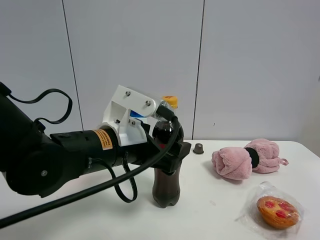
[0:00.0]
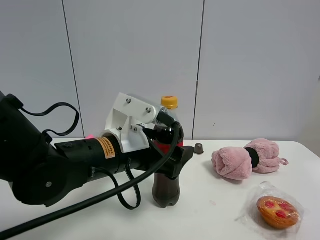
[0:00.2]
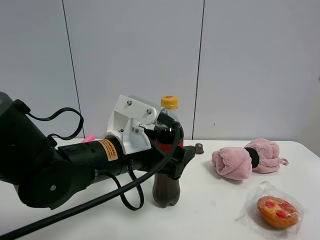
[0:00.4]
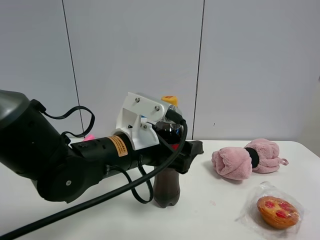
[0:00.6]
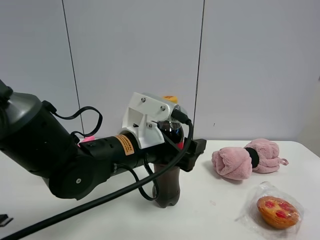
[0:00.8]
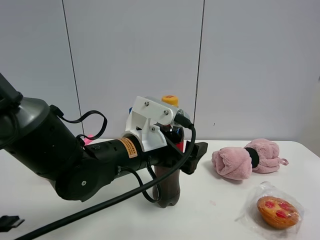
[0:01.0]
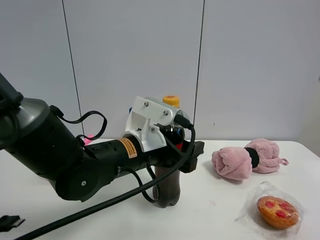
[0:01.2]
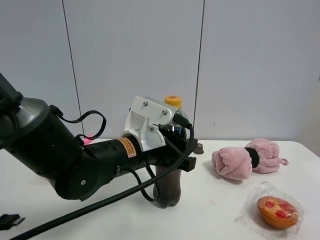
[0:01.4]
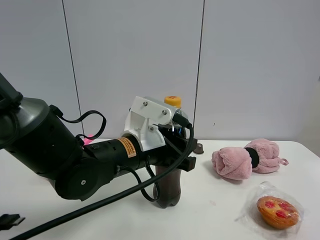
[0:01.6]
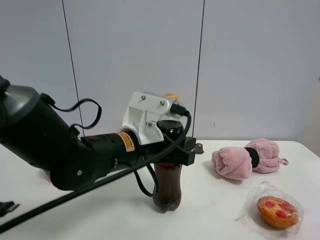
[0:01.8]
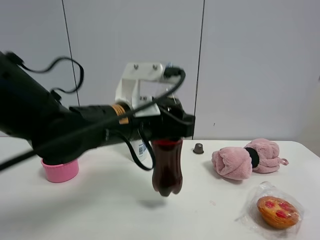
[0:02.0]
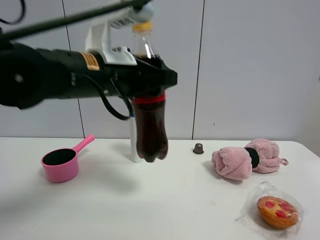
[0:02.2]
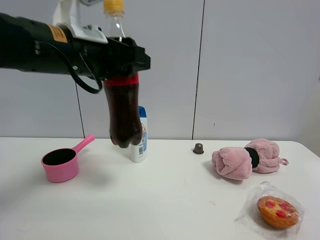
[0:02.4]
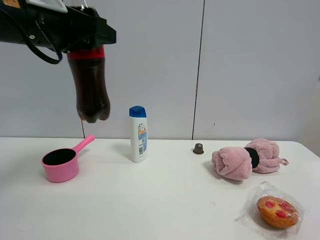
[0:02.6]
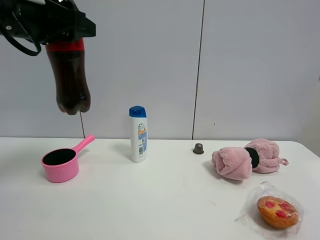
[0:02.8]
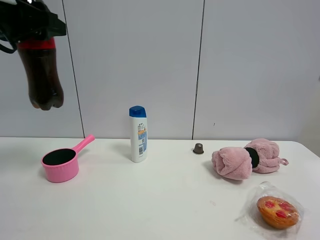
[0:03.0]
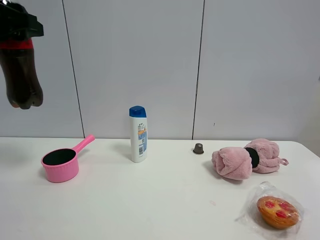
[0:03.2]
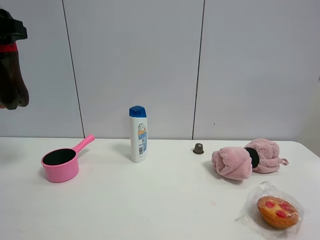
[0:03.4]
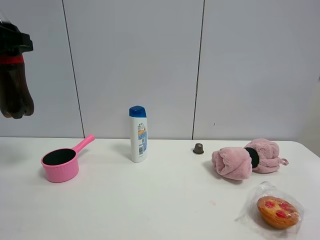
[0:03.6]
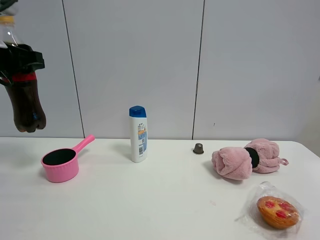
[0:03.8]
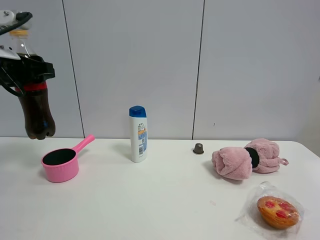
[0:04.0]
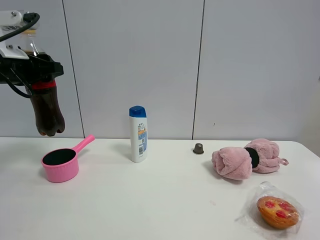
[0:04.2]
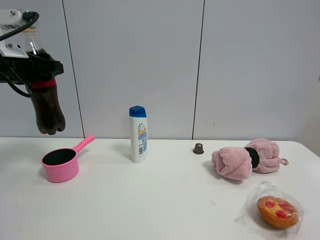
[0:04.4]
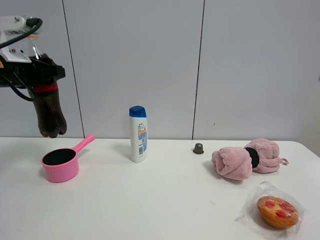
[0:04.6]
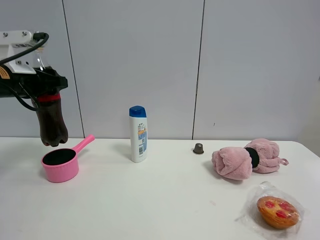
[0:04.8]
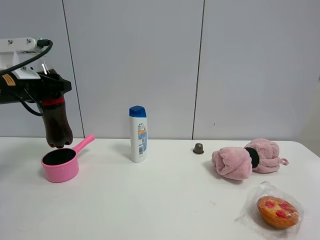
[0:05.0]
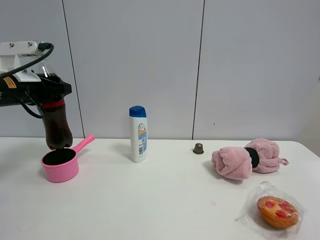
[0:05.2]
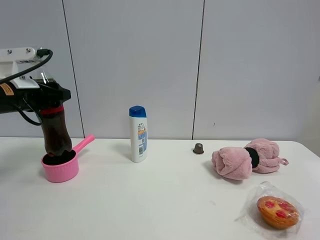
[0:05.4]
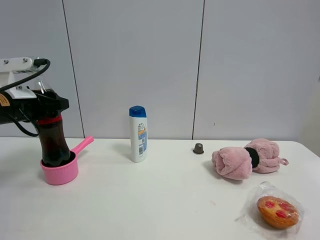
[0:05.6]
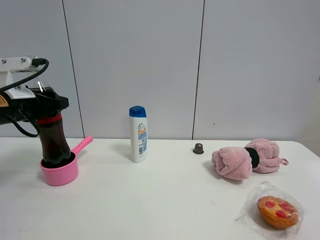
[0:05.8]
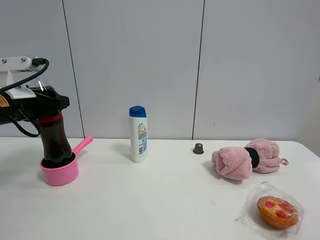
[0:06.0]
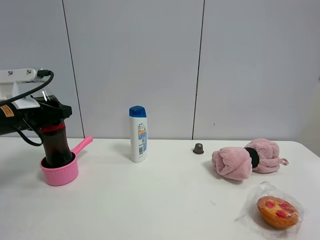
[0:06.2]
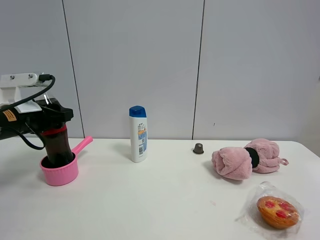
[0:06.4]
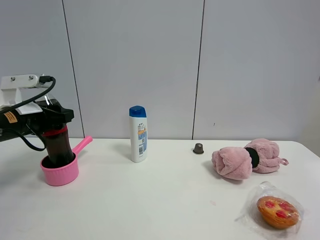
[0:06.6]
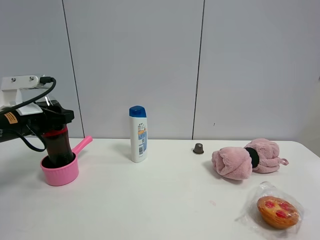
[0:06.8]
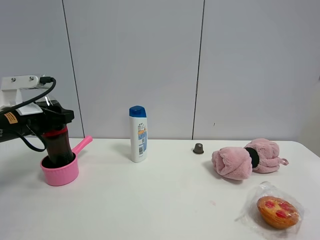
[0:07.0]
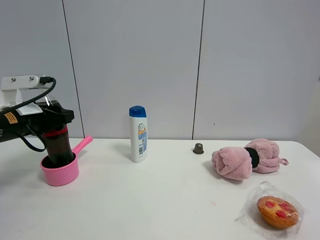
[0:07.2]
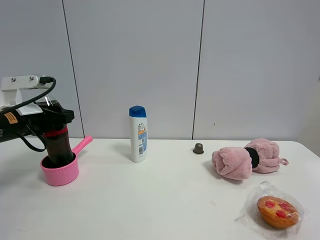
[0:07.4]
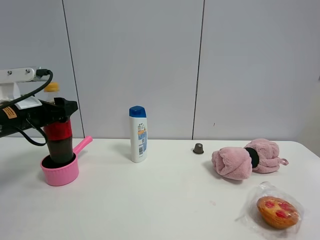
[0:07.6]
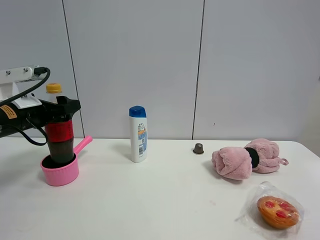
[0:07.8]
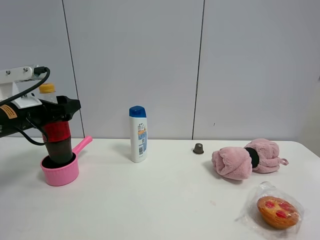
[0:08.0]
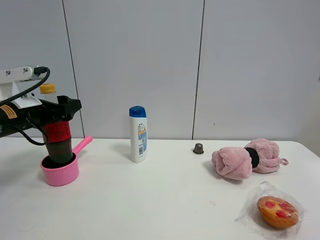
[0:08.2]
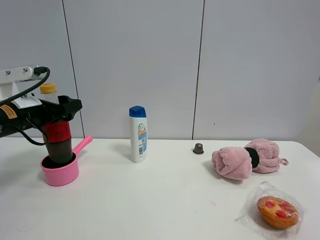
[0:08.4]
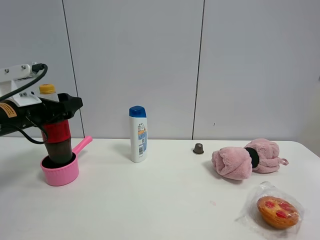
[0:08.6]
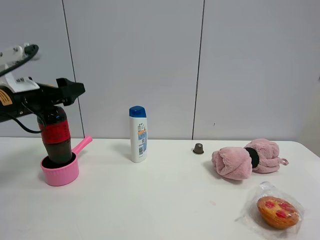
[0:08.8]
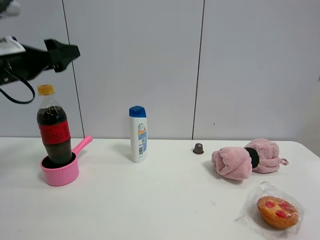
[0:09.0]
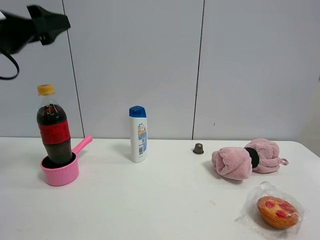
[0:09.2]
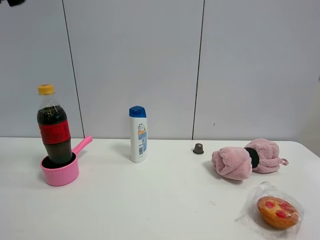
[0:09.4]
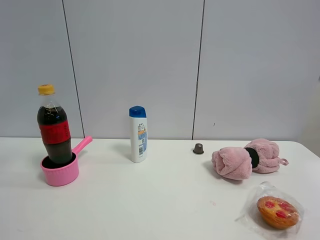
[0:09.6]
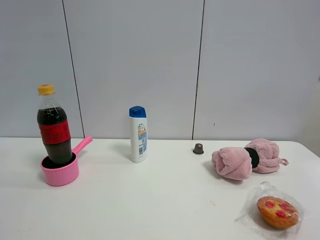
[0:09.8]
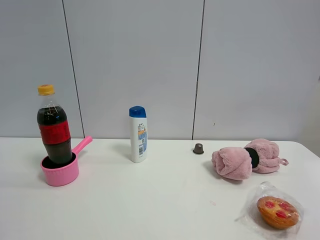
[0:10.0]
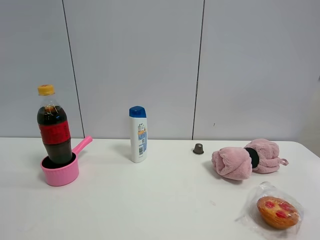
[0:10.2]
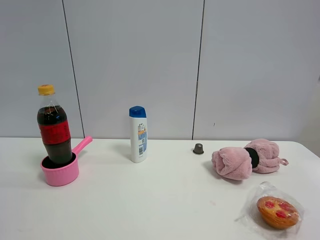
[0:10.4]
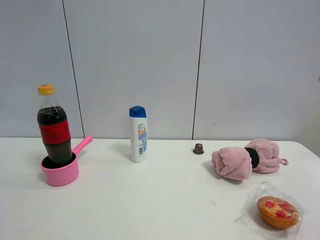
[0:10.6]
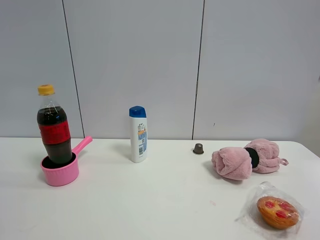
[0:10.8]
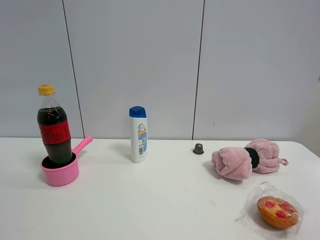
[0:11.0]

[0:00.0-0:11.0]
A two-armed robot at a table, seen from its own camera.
Task of the whole recording: the gripper move the object.
Step, 0:01.4 to 0:08.4: Place the coke into the pink pot with the left gripper.
0:00.0 to 0:01.6: The left gripper closes.
0:01.6 to 0:03.2: The left gripper heads to the left and upward, covering some 30 cm.
0:03.2 to 0:04.8: The left gripper shifts some 15 cm downward and forward.
0:04.8 to 0:06.2: The left gripper moves downward, some 5 cm.
0:06.2 to 0:07.8: The left gripper opens its fingers.
0:07.8 to 0:09.4: The left gripper goes approximately 20 cm upward and backward.

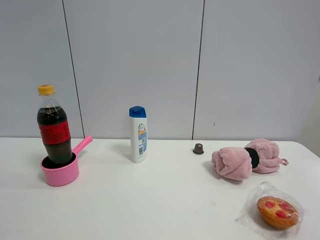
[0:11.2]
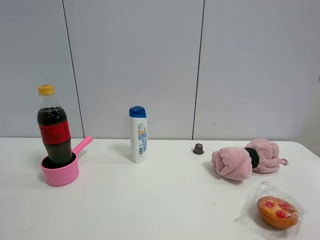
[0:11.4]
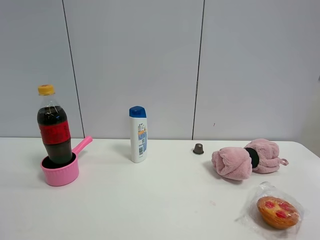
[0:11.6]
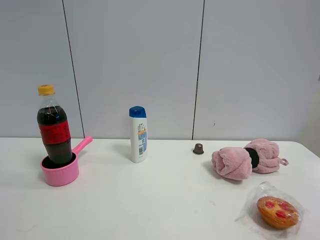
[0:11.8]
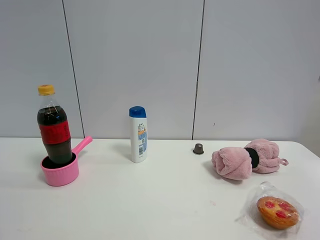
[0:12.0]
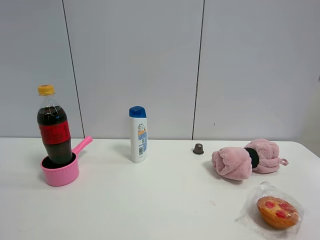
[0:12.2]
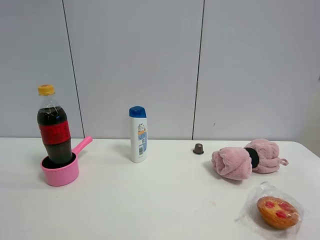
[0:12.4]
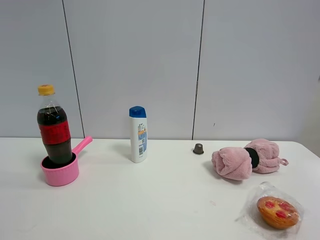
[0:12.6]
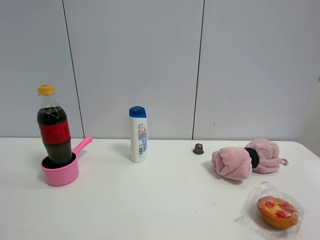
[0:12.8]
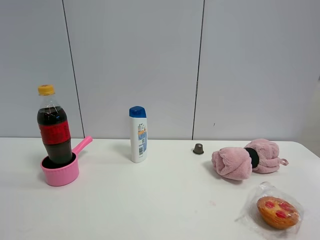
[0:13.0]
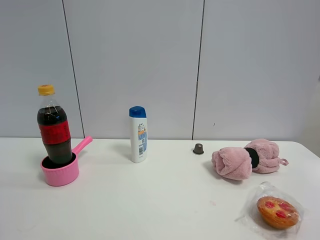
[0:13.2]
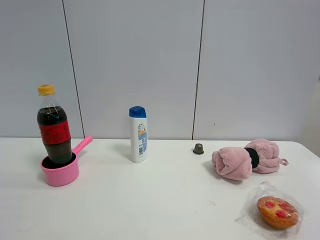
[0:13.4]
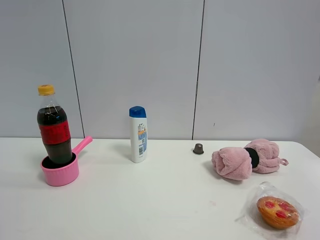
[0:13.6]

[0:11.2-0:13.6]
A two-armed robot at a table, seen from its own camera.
Task of the whole recording: the gripper move the object.
0:12.4 to 0:13.6: The two grippers keep their place.

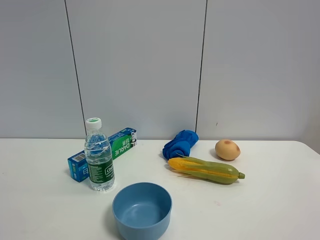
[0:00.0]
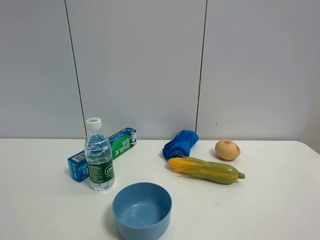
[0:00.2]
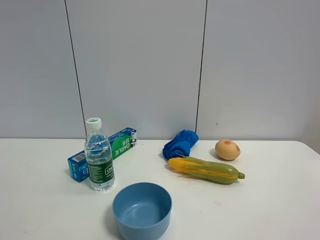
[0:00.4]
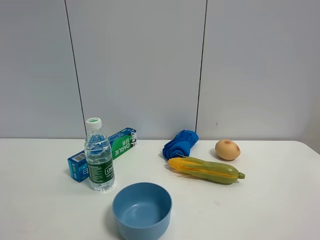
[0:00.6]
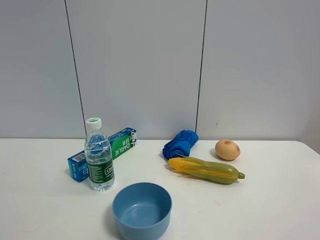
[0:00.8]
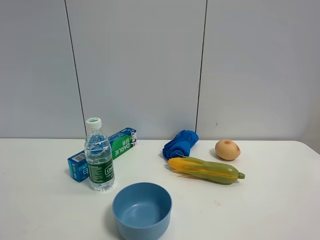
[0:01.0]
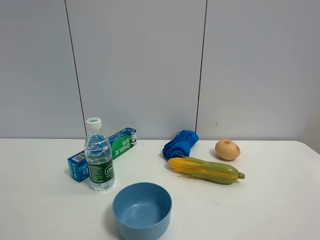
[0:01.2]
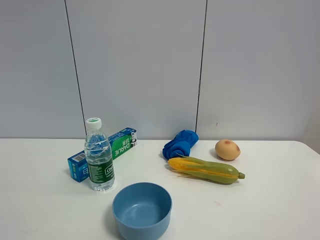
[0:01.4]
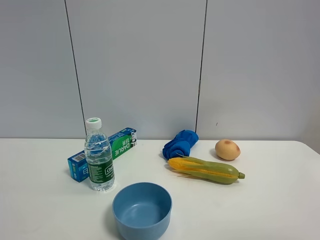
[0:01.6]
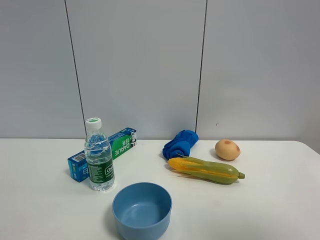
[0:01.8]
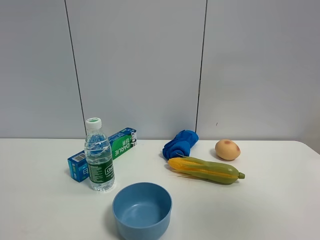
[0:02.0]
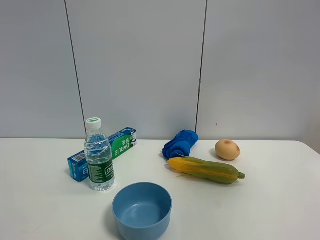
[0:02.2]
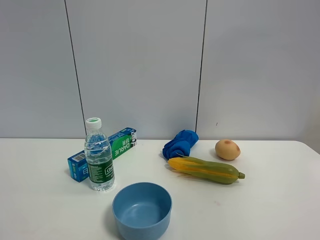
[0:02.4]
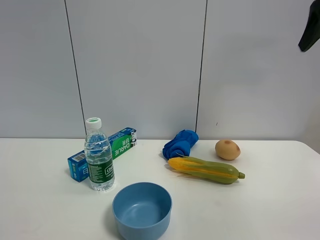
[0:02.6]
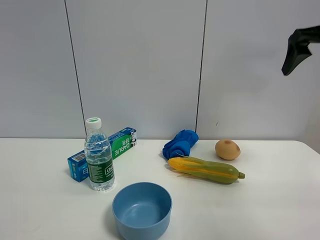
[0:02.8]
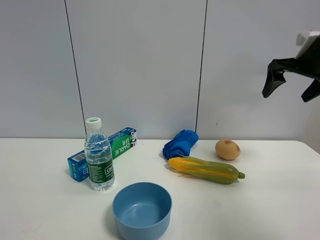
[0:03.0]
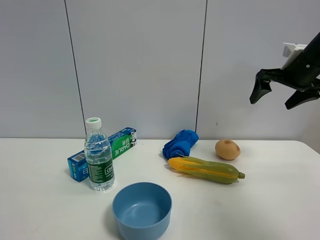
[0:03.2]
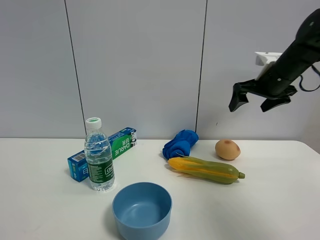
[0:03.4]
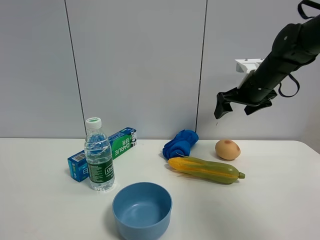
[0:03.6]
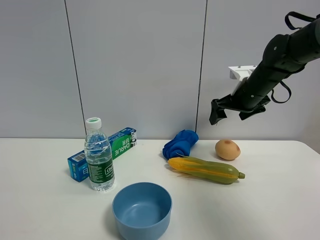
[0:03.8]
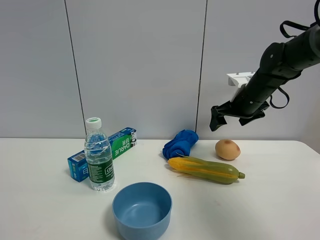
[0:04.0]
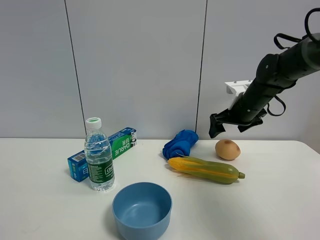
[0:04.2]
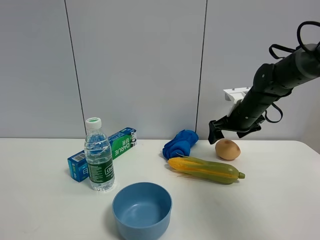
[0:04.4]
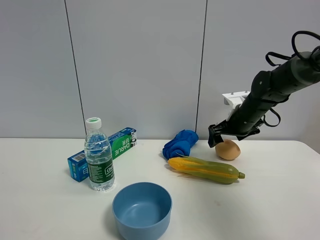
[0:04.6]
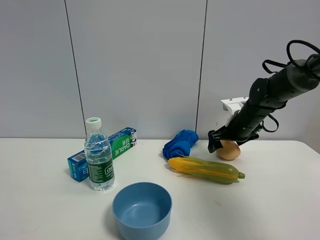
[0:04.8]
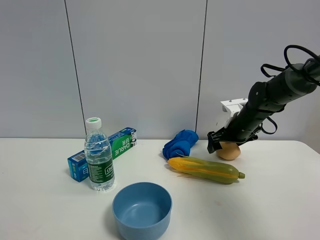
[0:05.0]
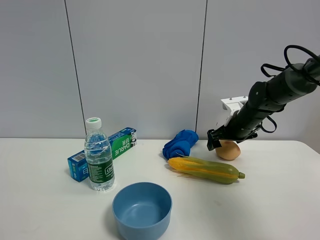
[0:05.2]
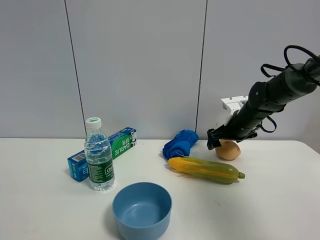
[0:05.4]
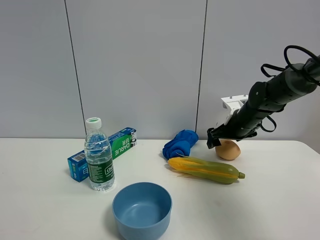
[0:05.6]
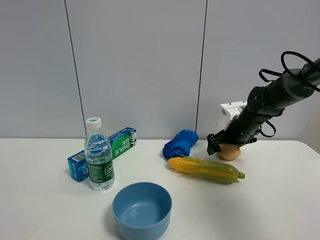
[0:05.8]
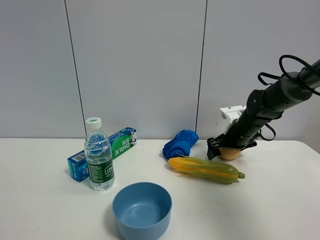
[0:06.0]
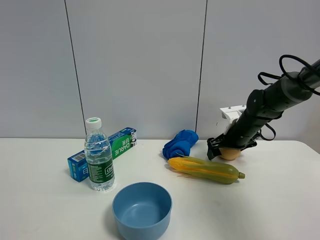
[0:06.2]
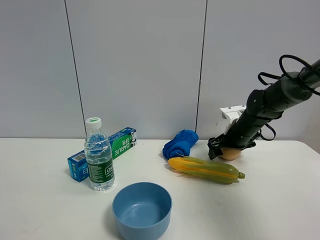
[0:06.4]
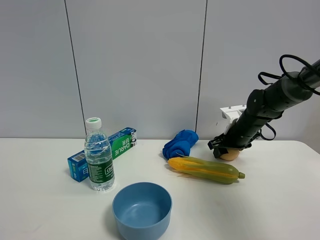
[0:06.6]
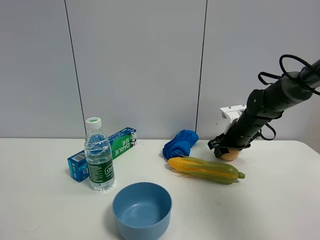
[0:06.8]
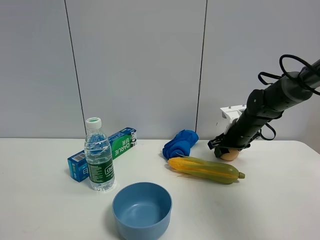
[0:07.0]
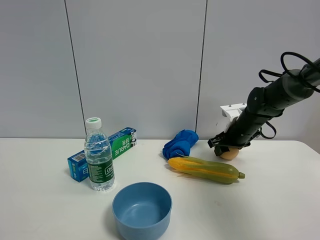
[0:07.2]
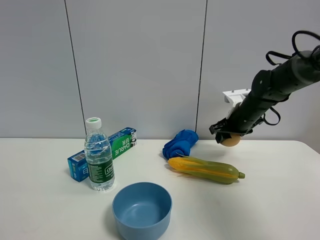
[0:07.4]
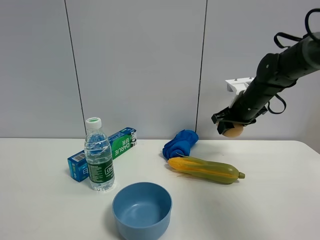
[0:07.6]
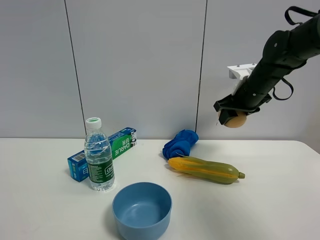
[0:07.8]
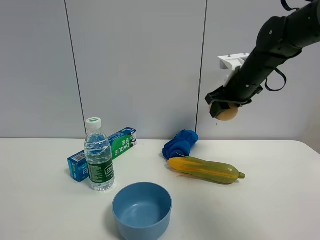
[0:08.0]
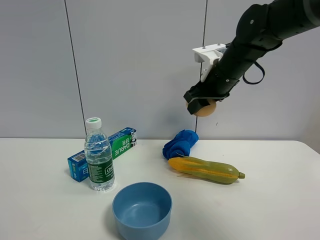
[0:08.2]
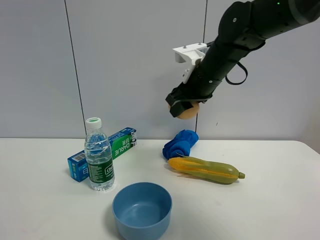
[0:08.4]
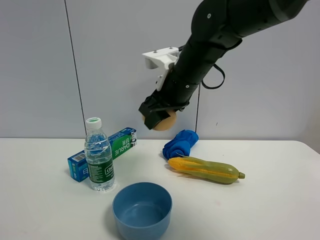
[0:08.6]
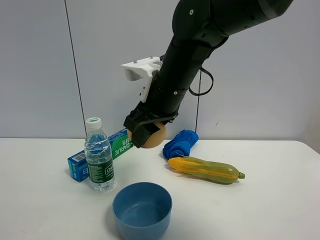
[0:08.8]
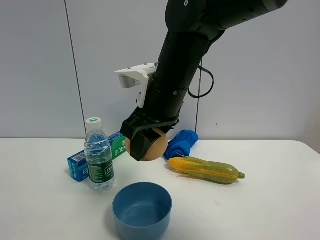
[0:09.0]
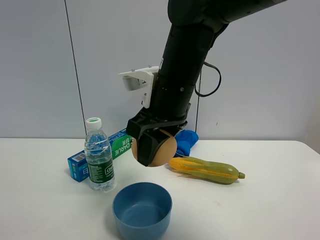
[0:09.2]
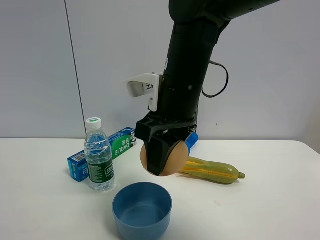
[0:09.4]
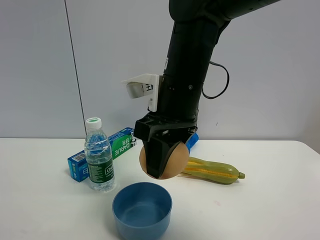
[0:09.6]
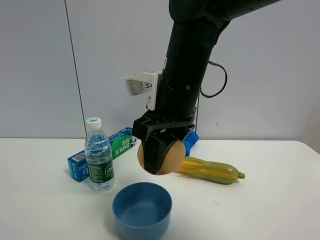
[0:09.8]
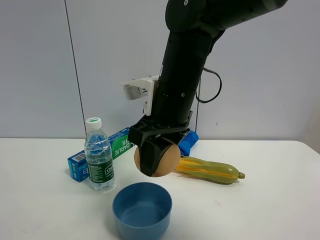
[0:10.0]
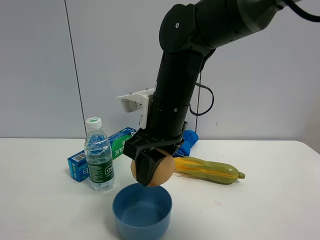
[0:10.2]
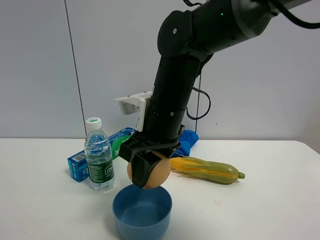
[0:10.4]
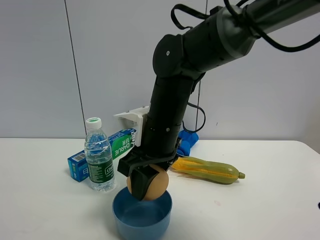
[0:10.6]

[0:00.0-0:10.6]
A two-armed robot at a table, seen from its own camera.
Task of the whole recording: the gripper move the object.
Step, 0:00.0 to 0:06.8: Grasp the egg yolk pastry with the right gripper.
0:01.6 to 0:03.0: The right gripper is displaced forward by some 40 cm.
0:03.0 to 0:04.6: The right gripper moves downward and to the left, some 20 cm.
0:04.6 to 0:06.0: The grippers make only small movements.
0:06.0 to 0:07.6: The right gripper goes about 10 cm upward, and closes its fingers.
0:07.6 to 0:09.0: The right gripper goes some 25 cm to the left and backward.
0:09.0 to 0:10.6: The right gripper moves downward, approximately 5 cm.
